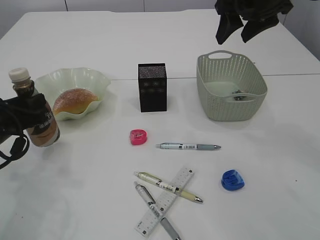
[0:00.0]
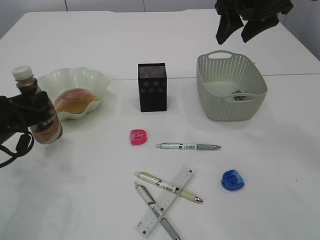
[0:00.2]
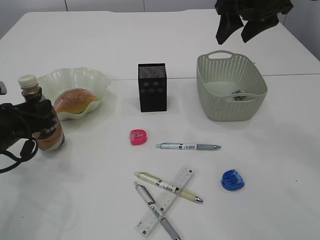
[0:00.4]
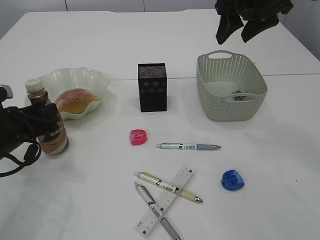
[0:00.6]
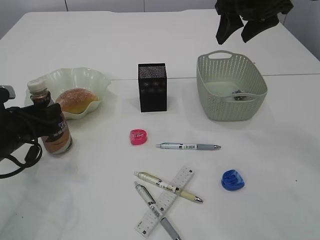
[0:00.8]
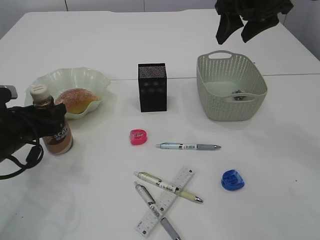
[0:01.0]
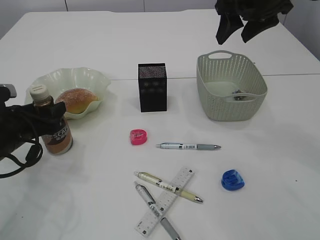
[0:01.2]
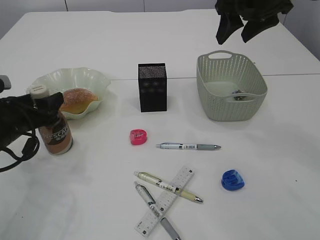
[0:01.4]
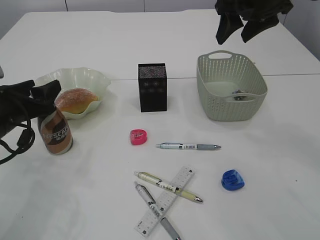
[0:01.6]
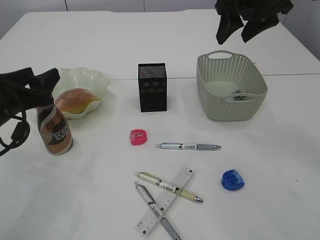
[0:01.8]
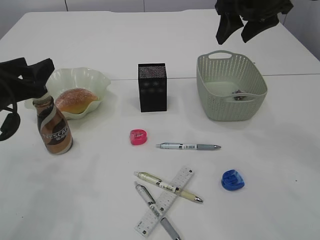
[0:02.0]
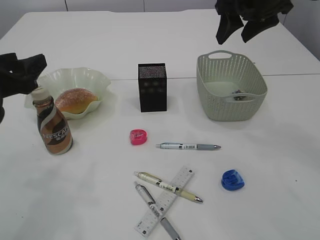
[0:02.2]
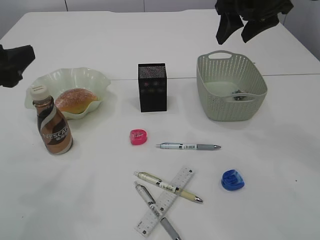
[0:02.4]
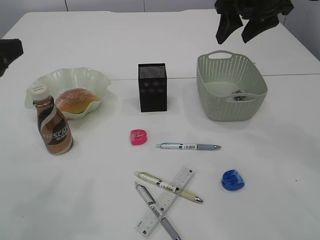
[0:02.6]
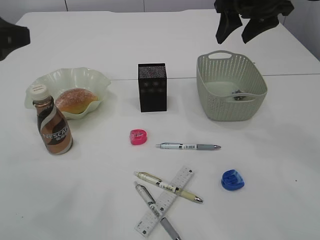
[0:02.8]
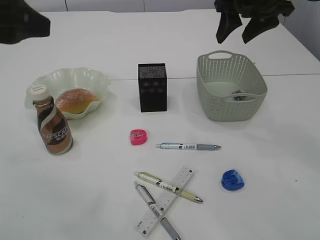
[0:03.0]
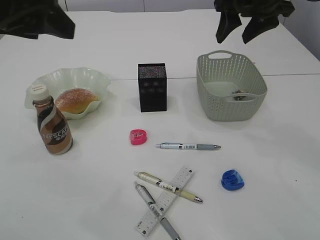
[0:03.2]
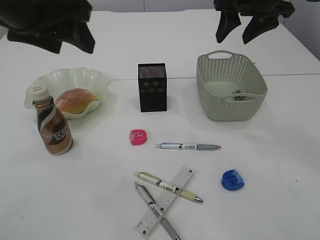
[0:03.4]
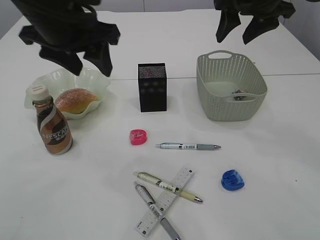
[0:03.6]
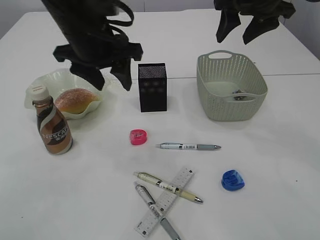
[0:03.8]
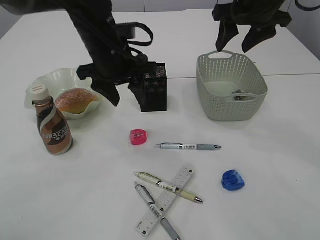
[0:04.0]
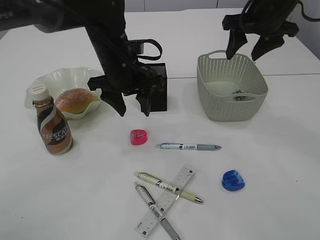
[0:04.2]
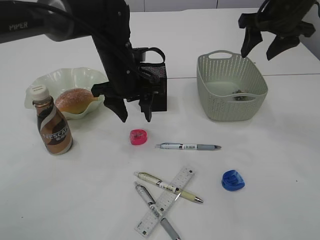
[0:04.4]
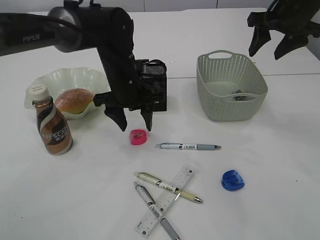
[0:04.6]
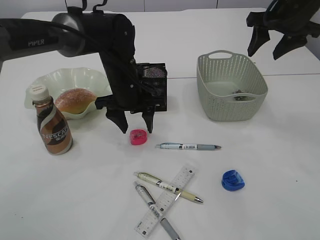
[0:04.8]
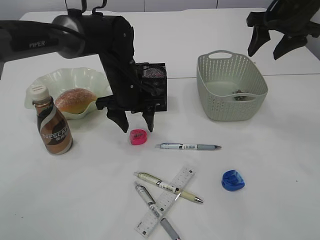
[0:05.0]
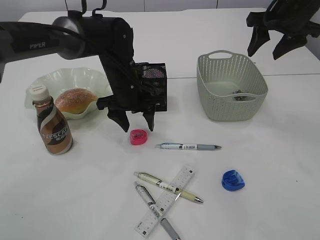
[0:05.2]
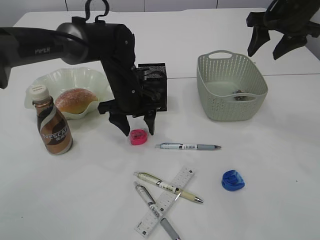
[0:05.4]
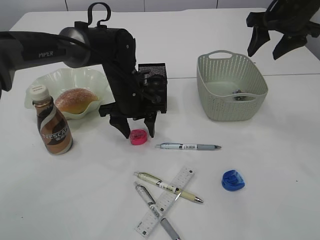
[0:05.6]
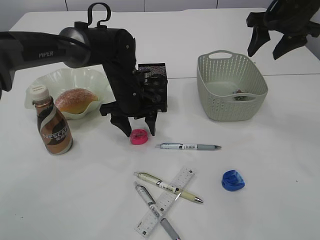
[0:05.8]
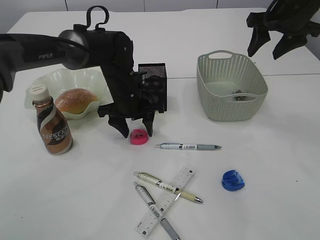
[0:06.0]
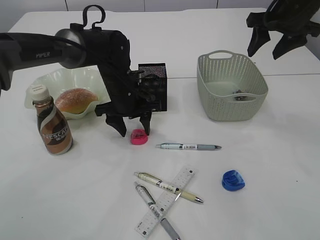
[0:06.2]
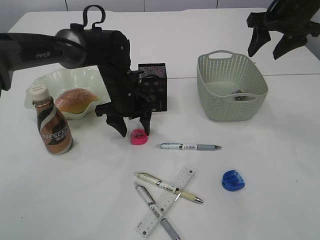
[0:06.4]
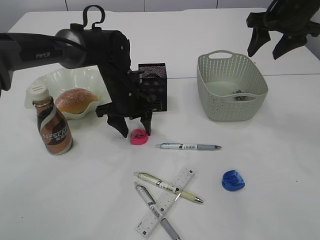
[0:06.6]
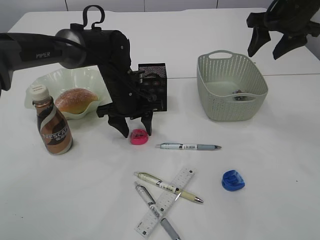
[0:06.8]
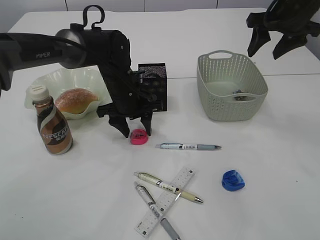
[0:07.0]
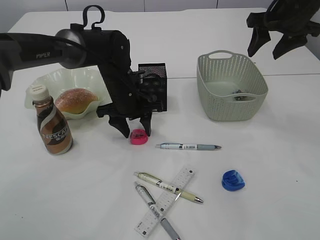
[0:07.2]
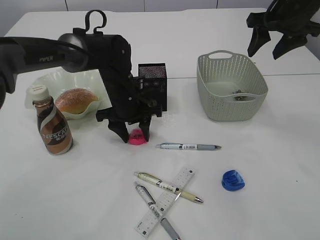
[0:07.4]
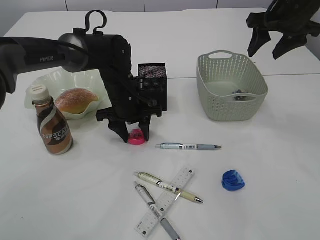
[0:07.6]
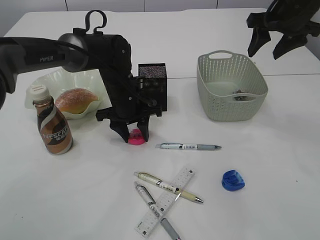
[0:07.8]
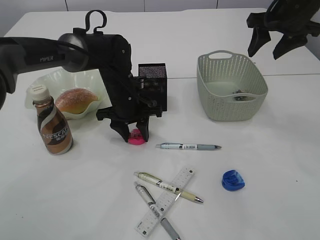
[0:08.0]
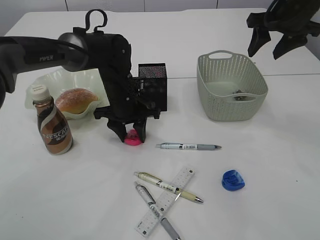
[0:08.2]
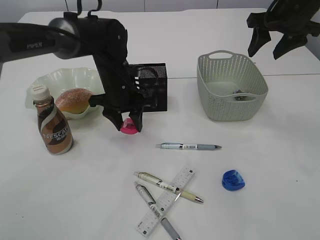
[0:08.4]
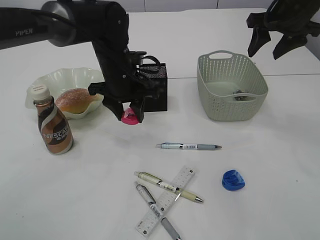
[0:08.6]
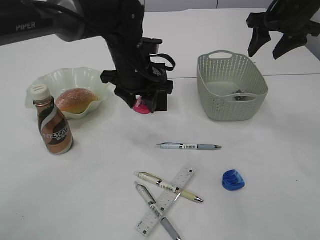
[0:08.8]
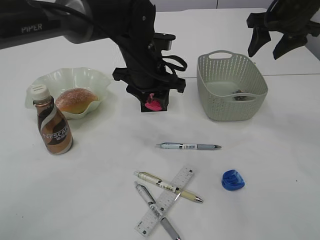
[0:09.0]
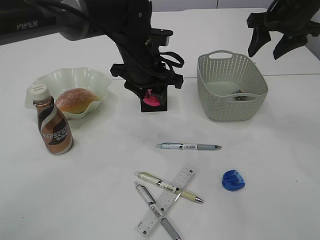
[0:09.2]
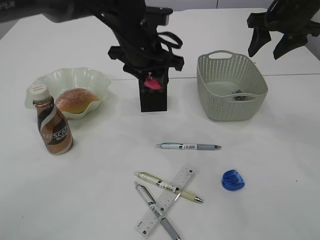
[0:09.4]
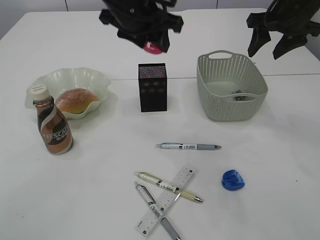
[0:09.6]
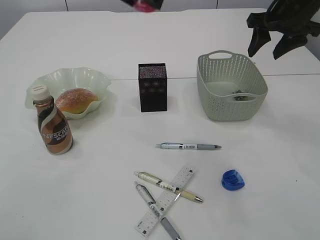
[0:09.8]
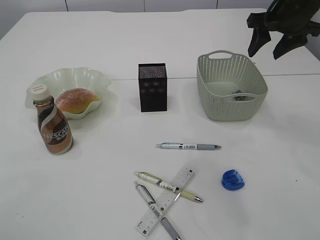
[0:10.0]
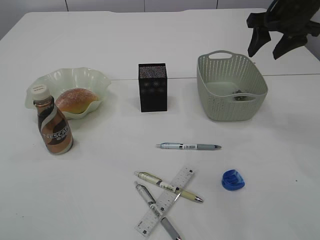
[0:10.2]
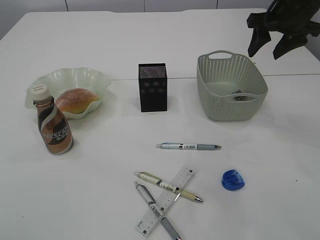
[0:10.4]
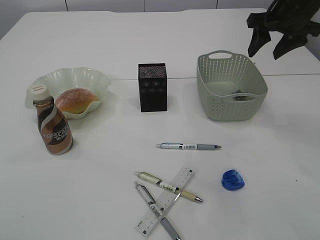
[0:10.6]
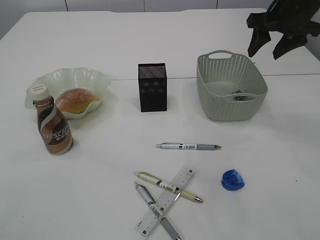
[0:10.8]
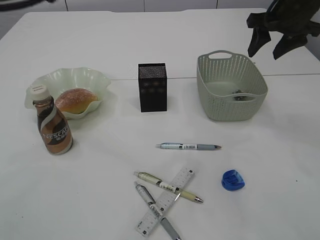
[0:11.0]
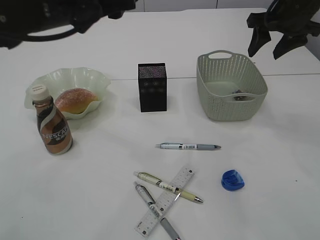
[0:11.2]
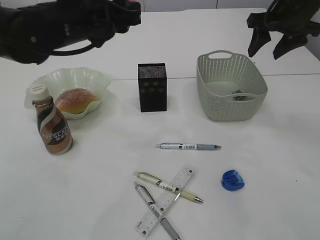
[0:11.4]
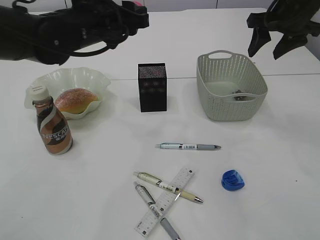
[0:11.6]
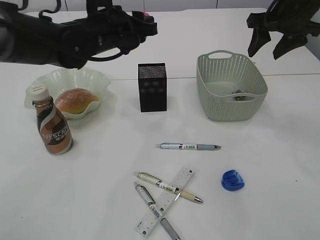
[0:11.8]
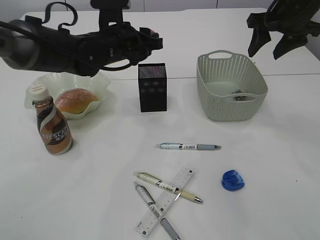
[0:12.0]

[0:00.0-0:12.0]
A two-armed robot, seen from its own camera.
Step, 0:00.0 to 0:02.4: Place the bottle.
Step, 0:02.6 to 0:08.6: Pick up the red pencil sharpener.
0:00.0 to 0:01.6: The left gripper opens up.
0:01.6 to 0:03.0: The left gripper goes approximately 20 cm upward.
0:03.0 to 0:04.4: The left gripper goes approximately 30 cm forward, downward and to the right. Meanwhile the right gripper shifts about 5 cm to the right.
0:04.4 to 0:06.0: The left gripper shifts approximately 5 cm downward.
0:06.0 to 0:07.6: Neither gripper changes place.
0:07.6 to 0:09.0: The left gripper heads upward, covering roughly 10 cm.
0:09.0 to 0:10.4: The left gripper goes approximately 35 cm upward and backward.
0:10.4 to 0:12.0: The left gripper moves downward and forward, approximately 35 cm.

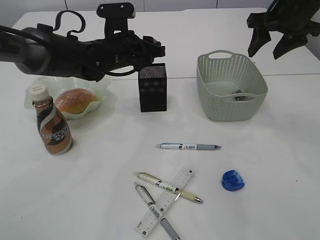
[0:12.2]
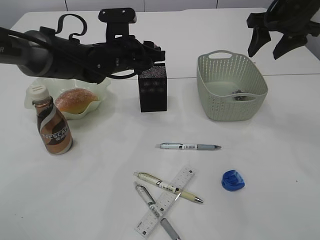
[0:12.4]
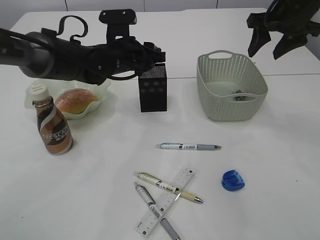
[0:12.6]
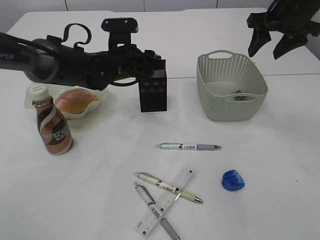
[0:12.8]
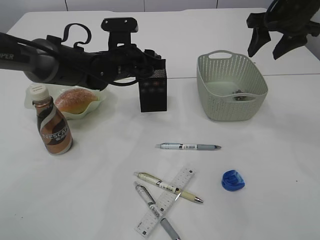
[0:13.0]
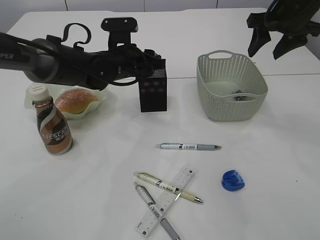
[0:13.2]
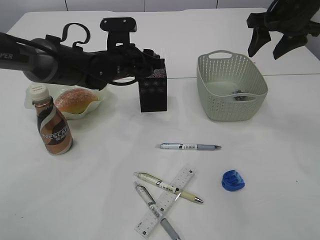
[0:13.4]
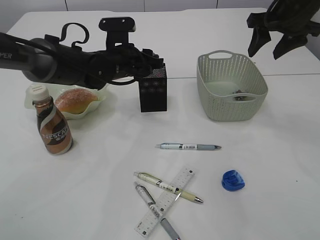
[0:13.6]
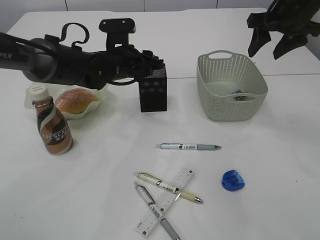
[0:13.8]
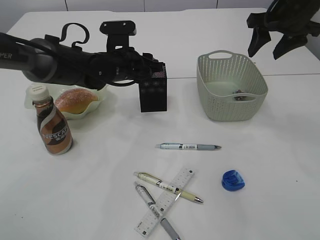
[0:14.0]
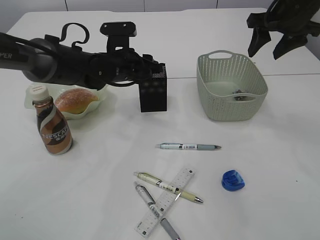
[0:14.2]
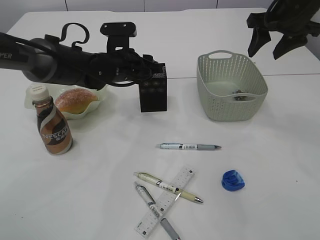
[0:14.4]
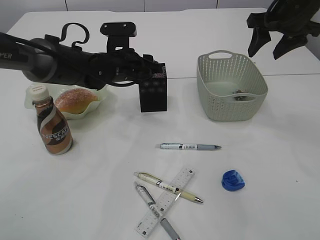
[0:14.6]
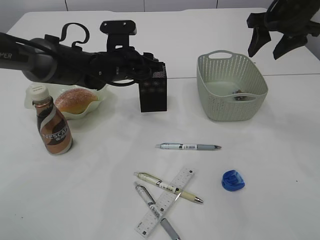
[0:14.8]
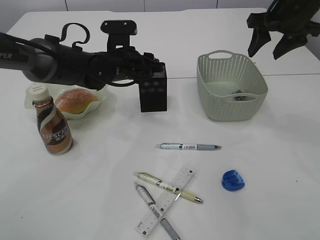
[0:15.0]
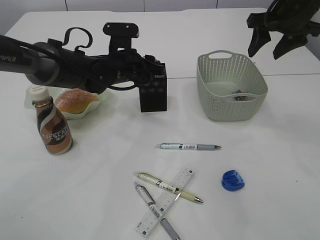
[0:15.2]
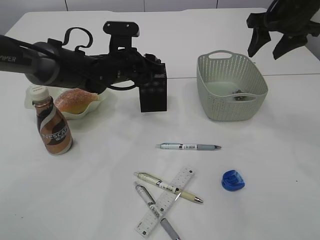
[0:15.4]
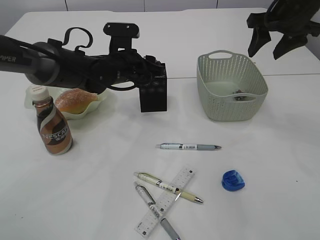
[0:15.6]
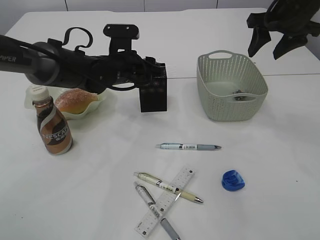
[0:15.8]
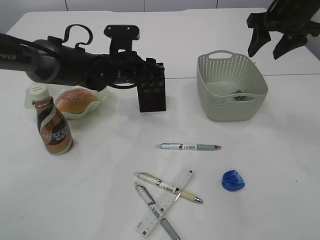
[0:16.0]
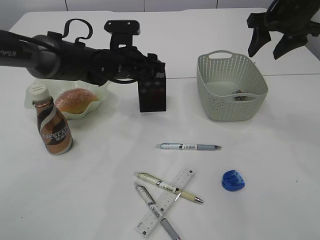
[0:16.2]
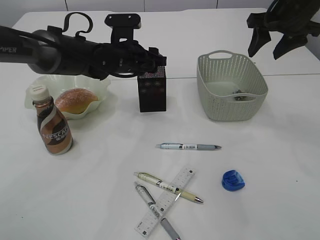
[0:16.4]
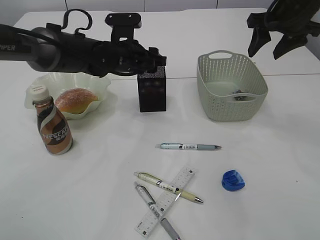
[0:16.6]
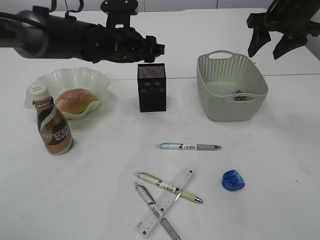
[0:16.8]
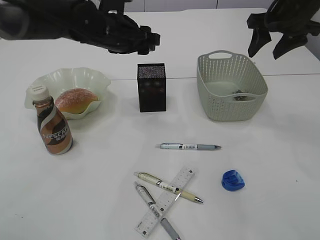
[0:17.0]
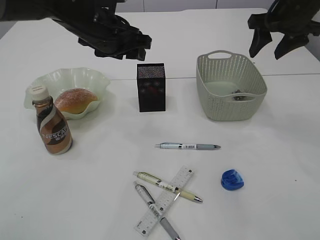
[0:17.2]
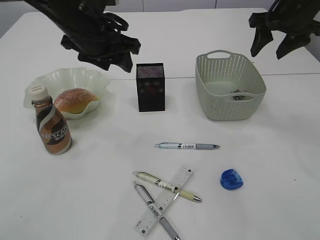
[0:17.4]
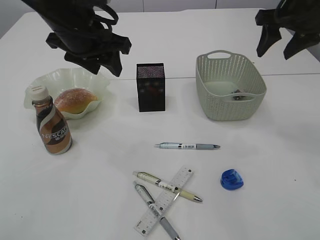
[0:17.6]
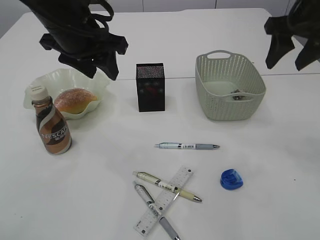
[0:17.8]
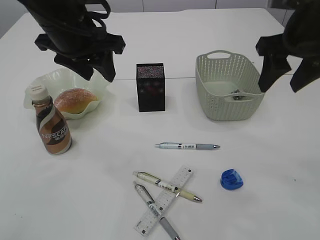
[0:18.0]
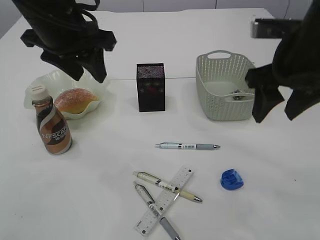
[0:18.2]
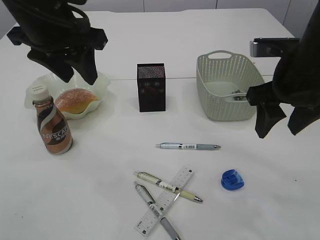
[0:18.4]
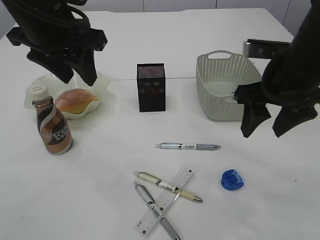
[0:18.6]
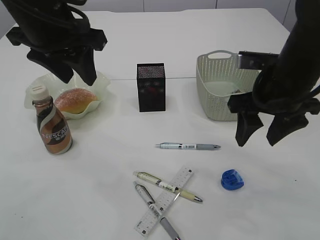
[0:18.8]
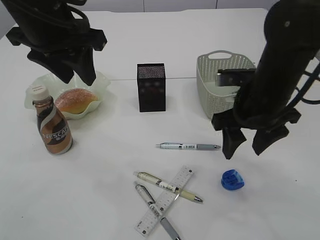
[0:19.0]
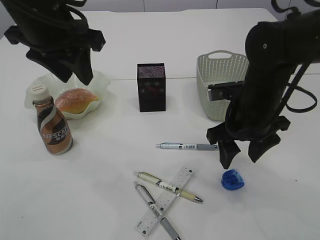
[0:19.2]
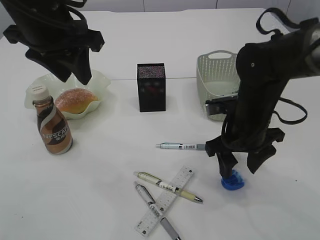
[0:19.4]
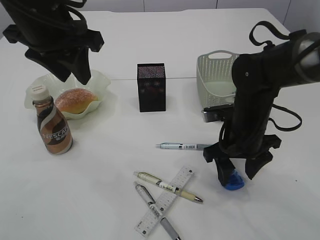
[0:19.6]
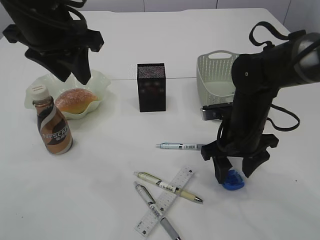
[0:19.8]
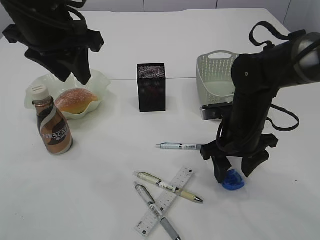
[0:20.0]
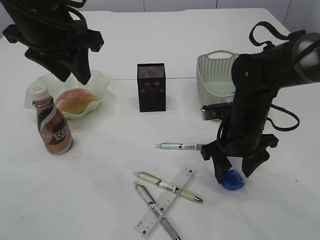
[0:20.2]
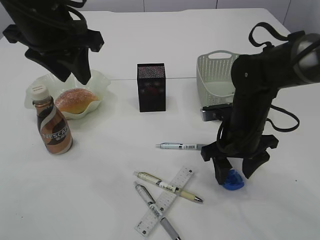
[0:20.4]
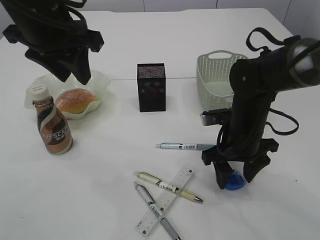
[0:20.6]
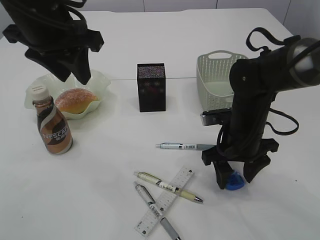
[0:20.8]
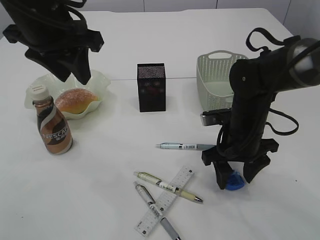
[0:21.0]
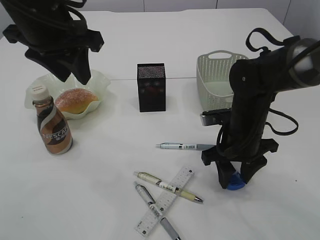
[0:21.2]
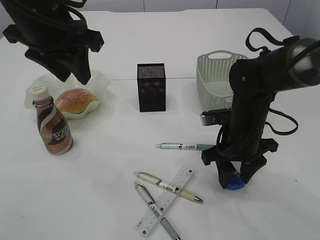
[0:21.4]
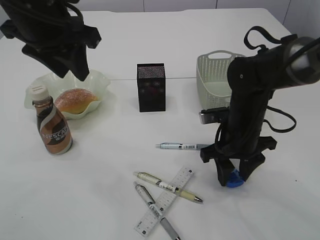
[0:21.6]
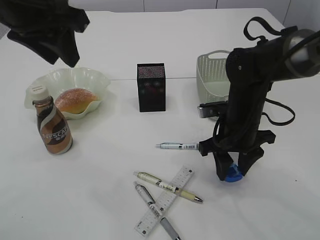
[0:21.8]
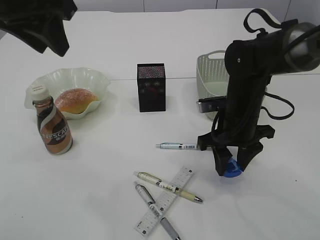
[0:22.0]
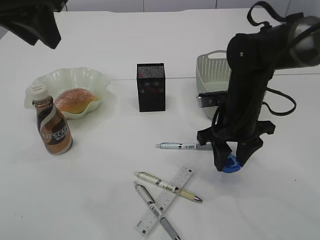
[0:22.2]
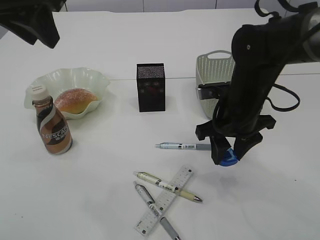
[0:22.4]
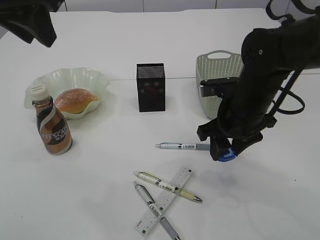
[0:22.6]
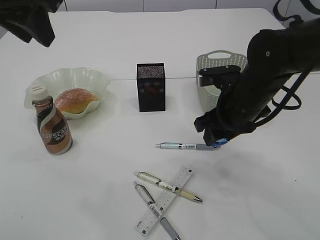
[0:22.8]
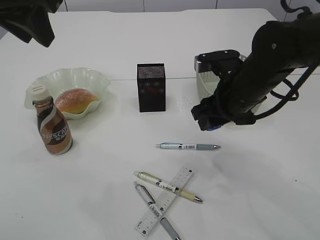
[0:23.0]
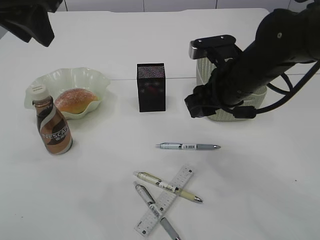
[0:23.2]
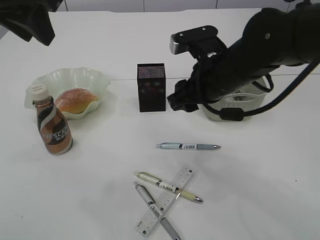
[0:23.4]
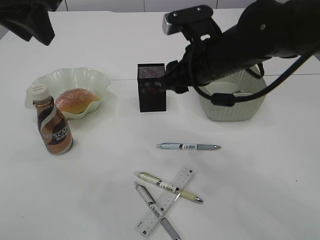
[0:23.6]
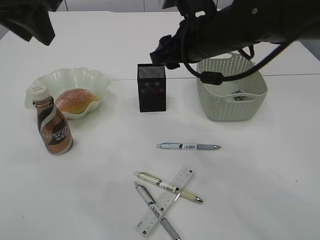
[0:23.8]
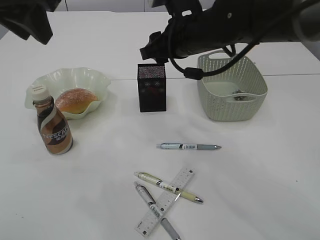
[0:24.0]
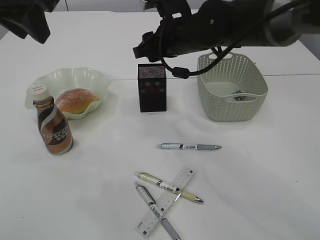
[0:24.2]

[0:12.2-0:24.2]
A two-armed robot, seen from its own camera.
Step, 0:12.2 to 0:16.8: Place the red pencil sharpener into the pen holder.
Step, 0:17.0 to 0:22.8: Pick up the blue pencil sharpener.
0:12.2 to 0:13.8: The grippers make only small movements.
0:13.8 to 0:15.2: The two grippers keep their place.
0:15.2 to 0:16.6: The grippers stay close to where they were, moving slightly.
0:16.6 to 0:18.2: The right gripper moves backward and to the left, approximately 15 cm, while the left gripper shifts roughly 20 cm upward, backward and to the left.
0:18.2 to 0:19.8: The right gripper shifts some 15 cm downward.
0:19.8 to 0:21.2: Neither gripper changes place.
0:21.2 to 0:22.6: The grippers both shift upward by approximately 5 cm.
0:22.6 to 0:24.2: The right gripper travels forward, to the left and upward by about 15 cm.
